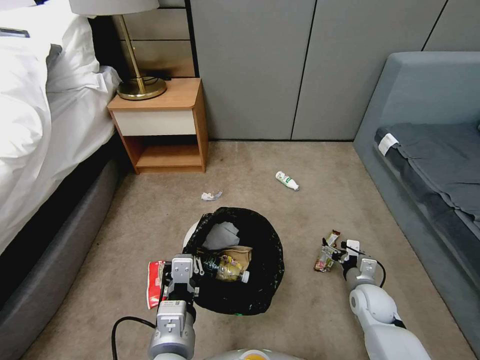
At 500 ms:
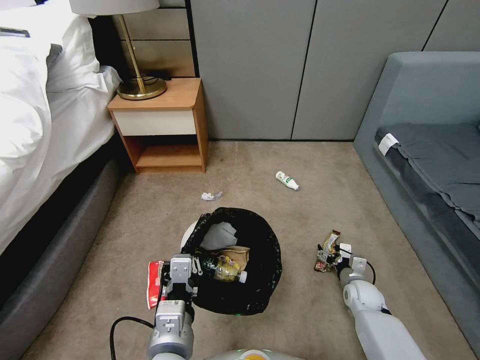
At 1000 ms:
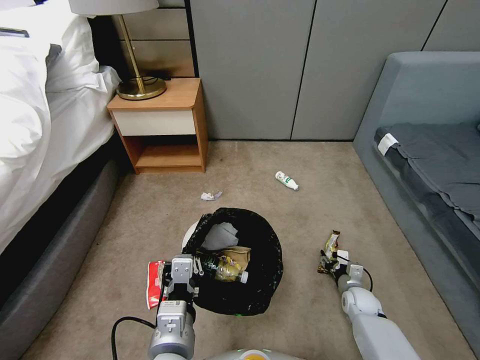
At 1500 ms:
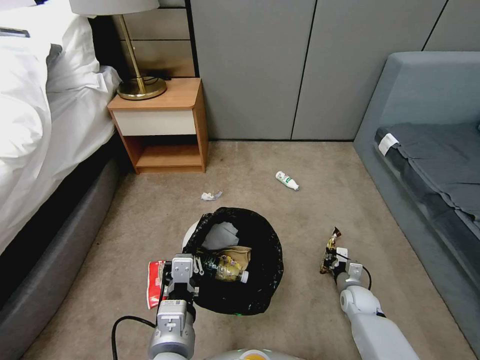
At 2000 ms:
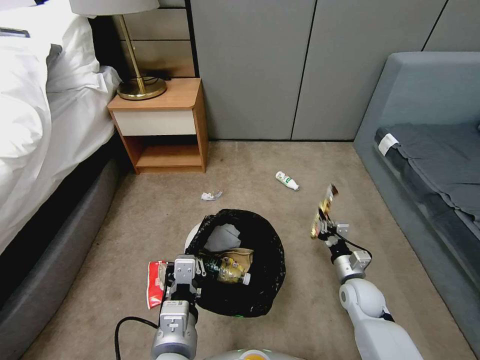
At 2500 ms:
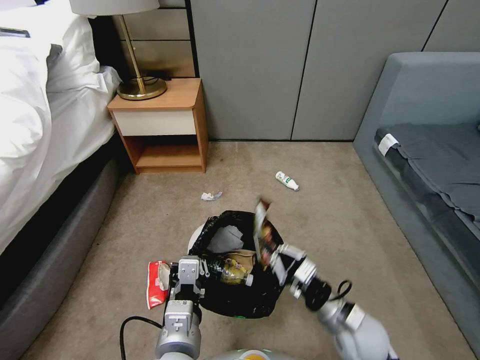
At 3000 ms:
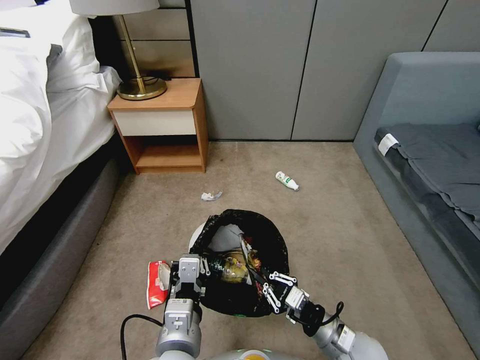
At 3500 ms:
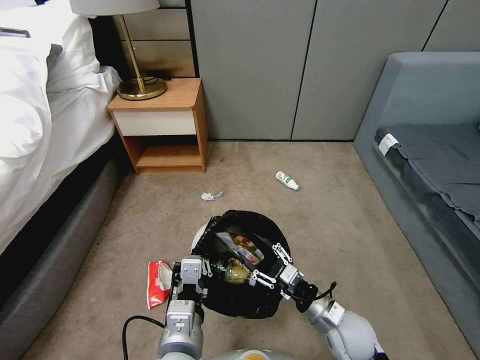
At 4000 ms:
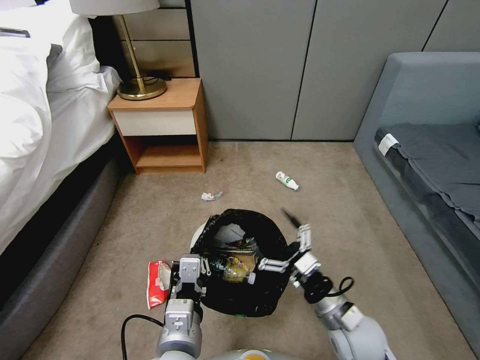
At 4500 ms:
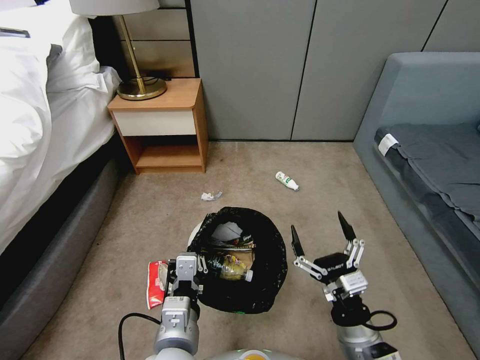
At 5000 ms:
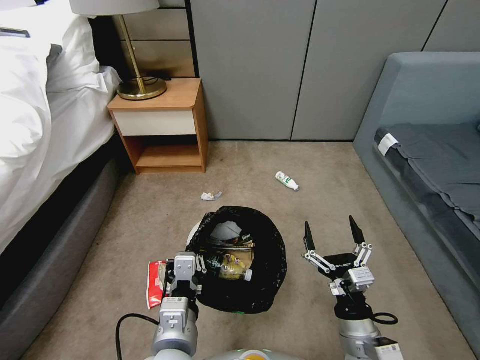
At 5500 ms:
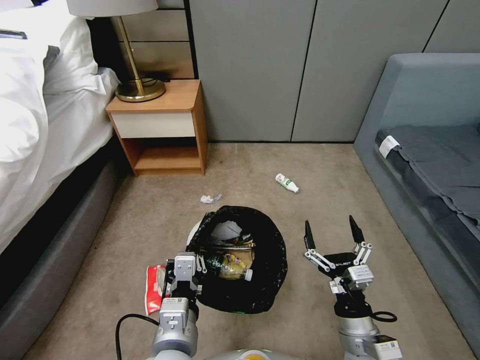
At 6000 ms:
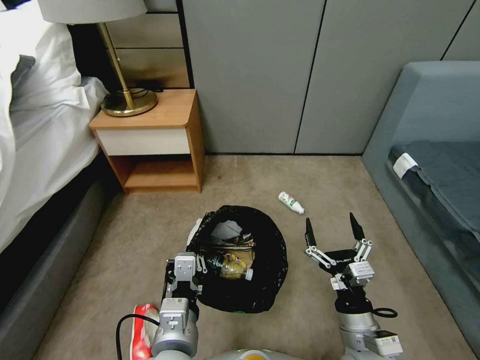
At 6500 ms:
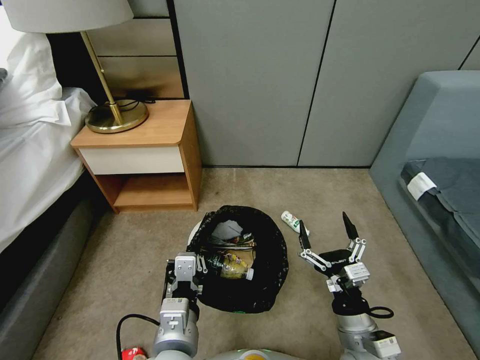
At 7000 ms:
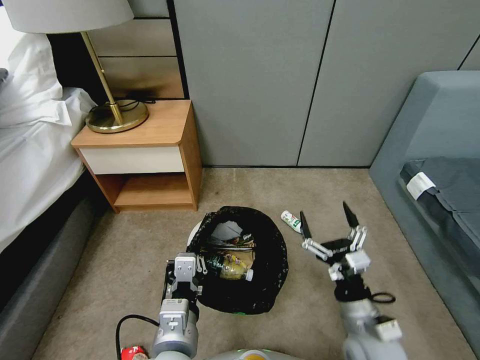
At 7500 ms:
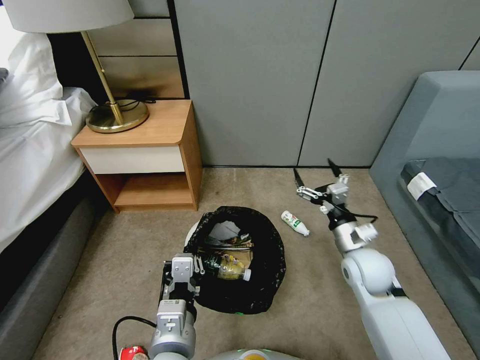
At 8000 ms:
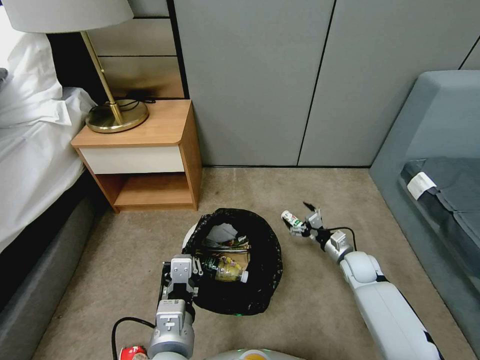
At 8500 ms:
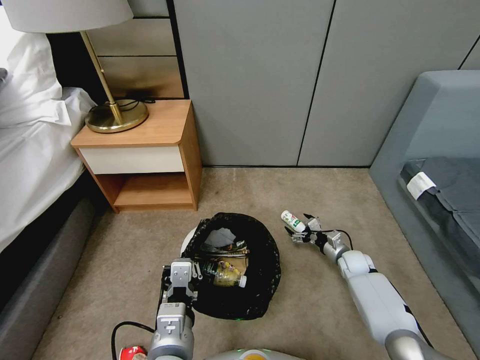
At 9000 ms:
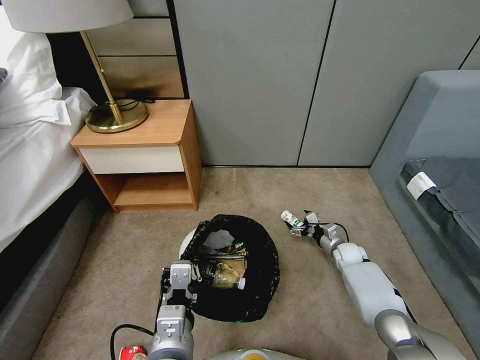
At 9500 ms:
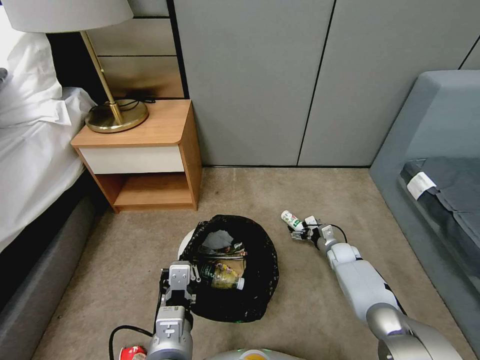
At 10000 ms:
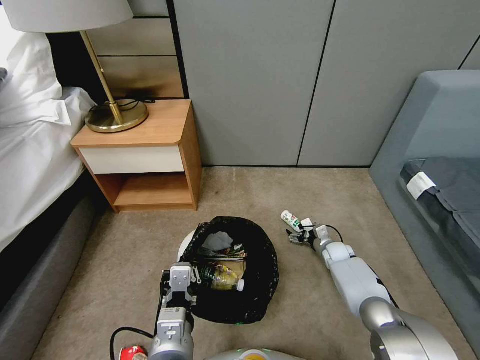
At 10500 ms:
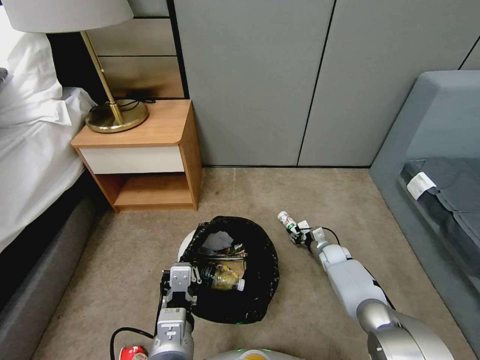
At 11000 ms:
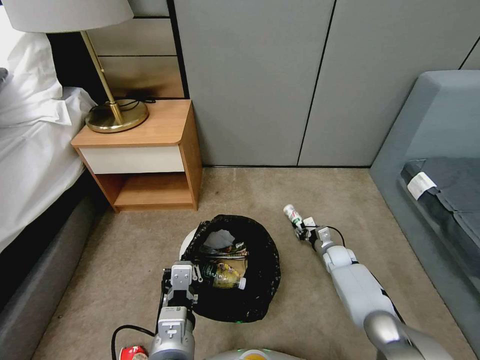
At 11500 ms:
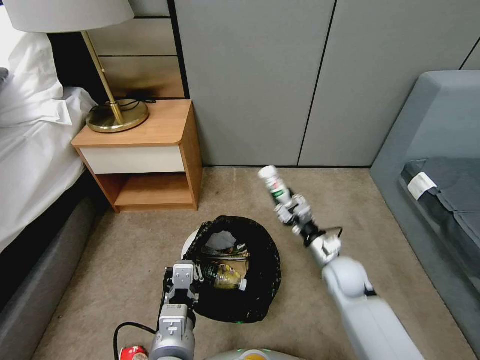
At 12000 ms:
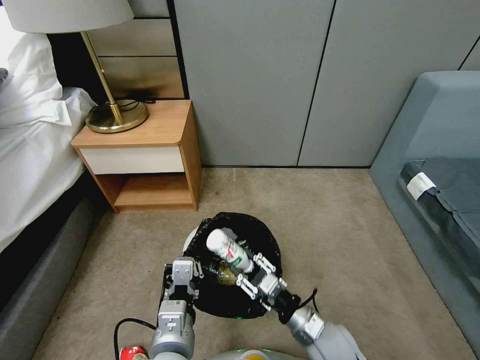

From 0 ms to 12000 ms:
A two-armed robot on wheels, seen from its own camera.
Task of the whole recording: Pick up the trash bin, then pick up the garbage from the floor and place it into the trash bin.
From 0 ms to 2000 ms: The right gripper goes downward and returns, roughly 10 cm each way, and closes its fingers.
From 2000 ms to 4000 ms: The right gripper heads backward, upward and to the left, covering roughly 15 cm, and opens up.
From 4000 ms to 6000 ms: The right gripper shifts roughly 5 cm backward.
From 6000 ms to 8000 ms: The right gripper goes about 25 cm forward, to the right and downward.
From 8000 ms to 10000 ms: The right gripper goes roughly 10 cm downward and forward.
From 10000 ms to 12000 ms: The right gripper is displaced backward, to the left and upward by some 30 cm, and closes its fingers.

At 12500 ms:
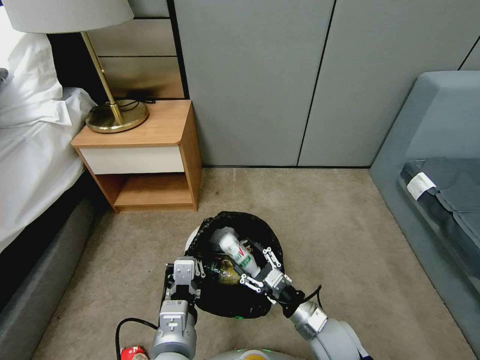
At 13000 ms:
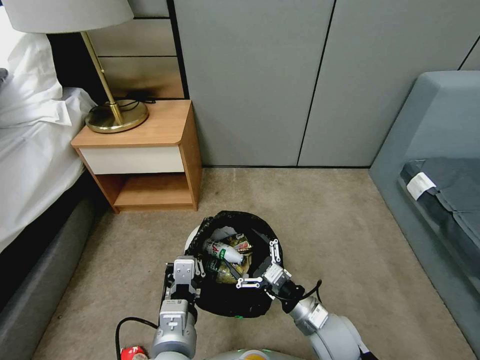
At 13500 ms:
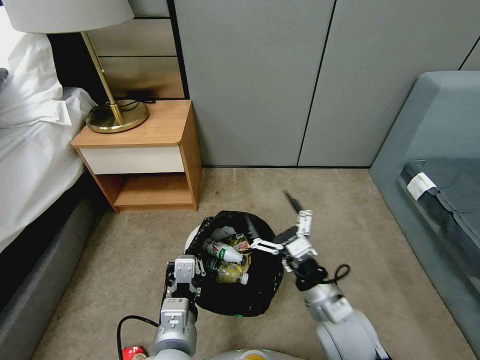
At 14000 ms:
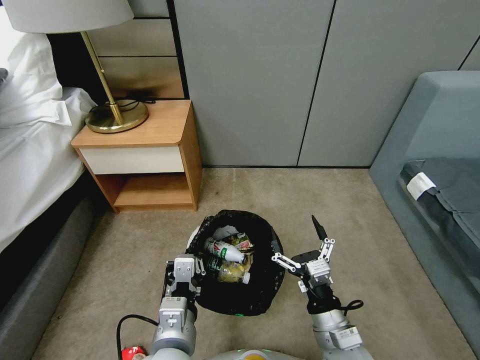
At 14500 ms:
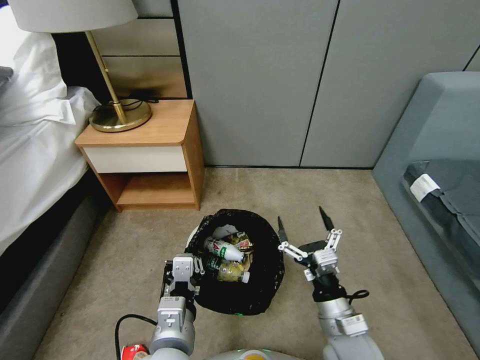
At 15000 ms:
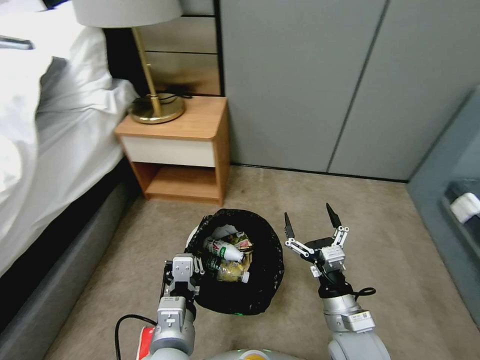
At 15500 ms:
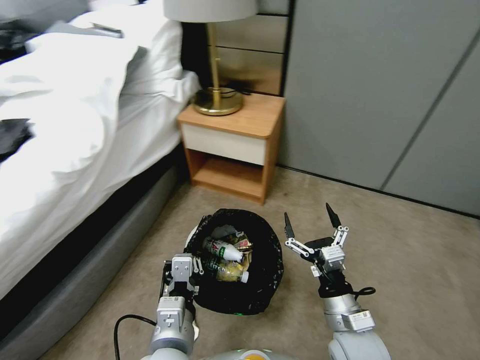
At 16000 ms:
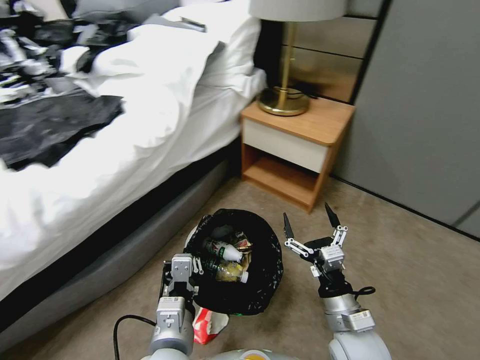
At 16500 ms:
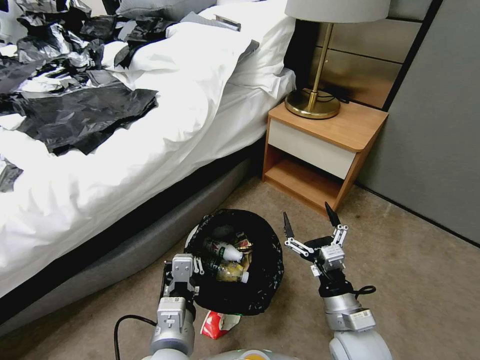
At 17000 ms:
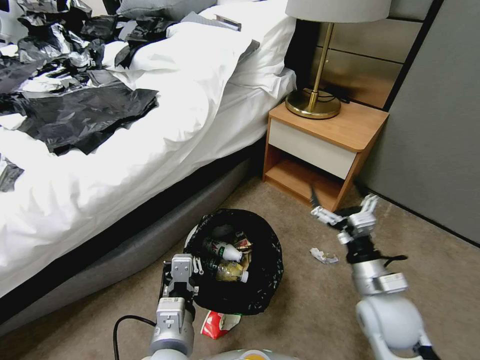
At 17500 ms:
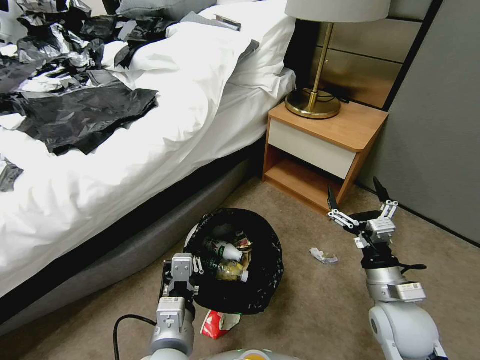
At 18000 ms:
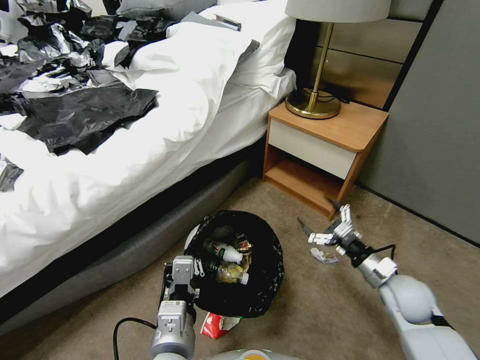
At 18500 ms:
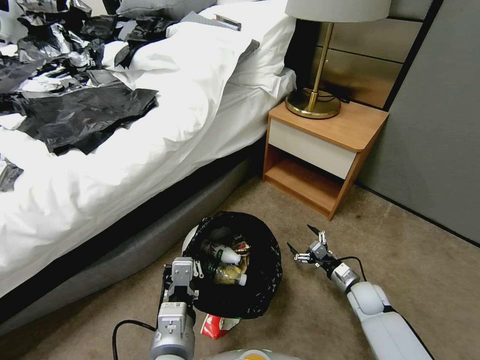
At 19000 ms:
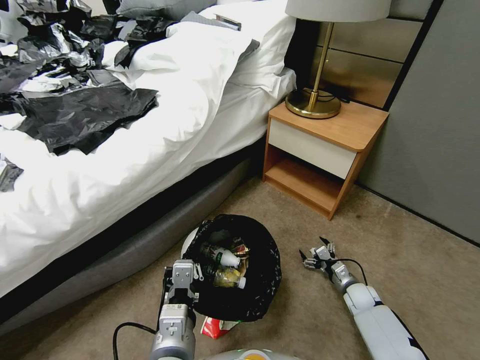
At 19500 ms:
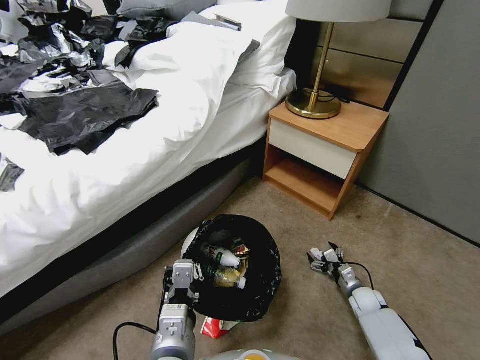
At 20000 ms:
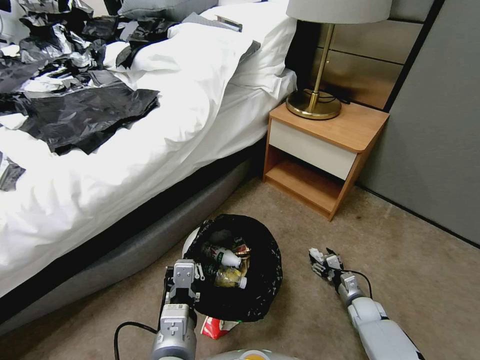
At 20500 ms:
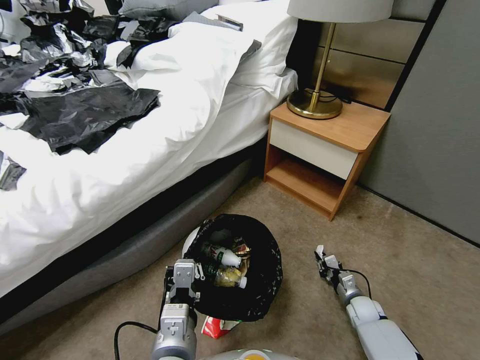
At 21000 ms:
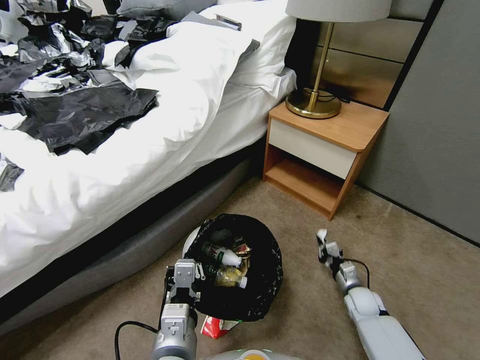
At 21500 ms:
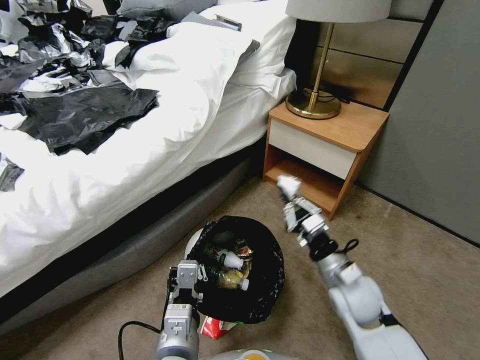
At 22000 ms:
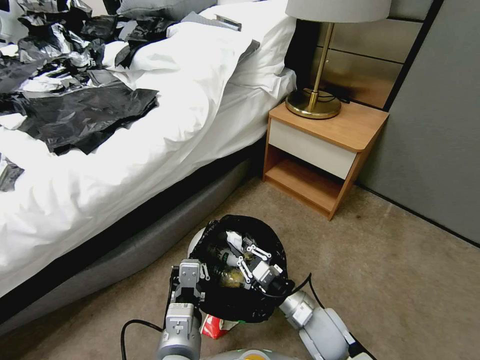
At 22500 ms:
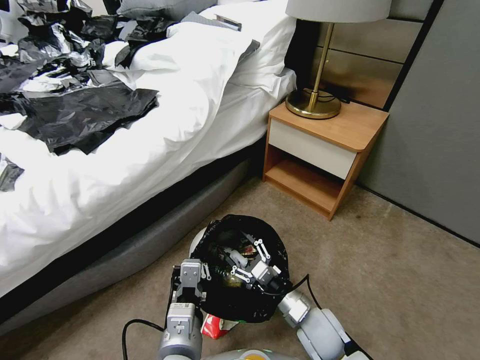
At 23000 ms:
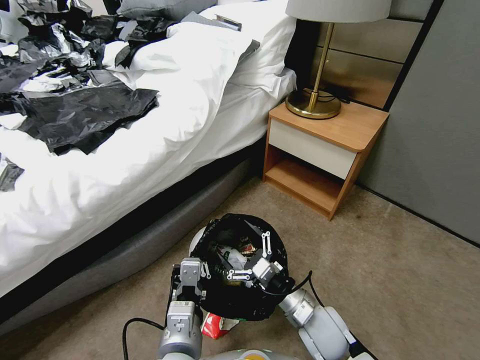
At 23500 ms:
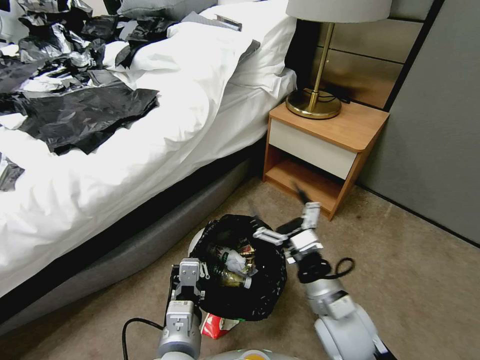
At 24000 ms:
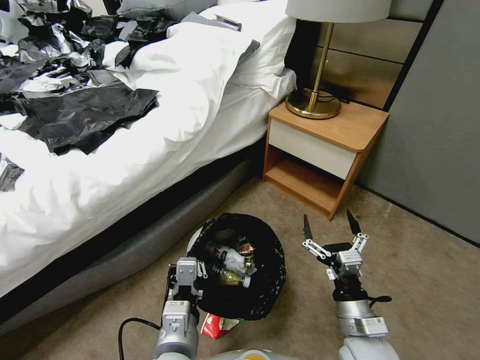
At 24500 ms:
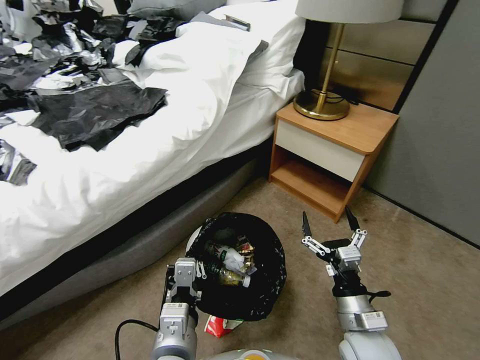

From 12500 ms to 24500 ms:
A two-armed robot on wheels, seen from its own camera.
Task of the whole recording: Pick up the trash bin, then pick up the garbage from the floor and place it into the trash bin.
From 12500 ms to 14500 ms: The right gripper is displaced upward by some 5 cm, and opens.
From 16500 ms to 18500 ms: The right gripper moves downward, to the right and forward, approximately 25 cm.
From 18500 ms to 20500 ms: The right gripper travels downward by roughly 10 cm, and closes its fingers.
From 20500 ms to 22500 ms: The right gripper shifts approximately 25 cm to the left and upward, and opens up.
From 22500 ms to 24500 ms: The right gripper heads upward and to the right, covering approximately 10 cm.

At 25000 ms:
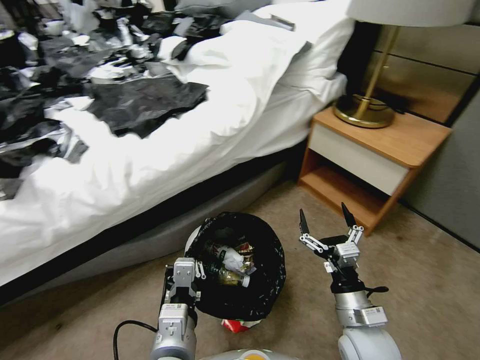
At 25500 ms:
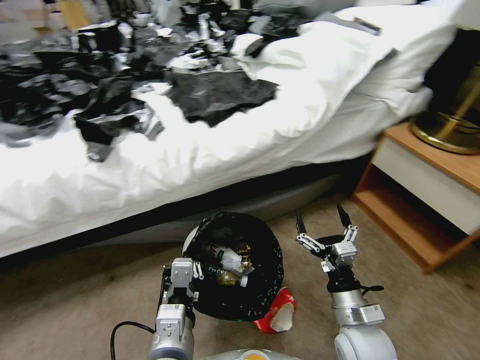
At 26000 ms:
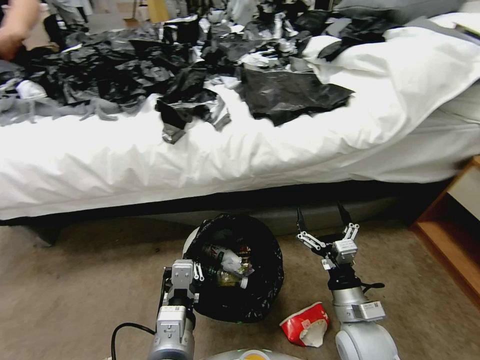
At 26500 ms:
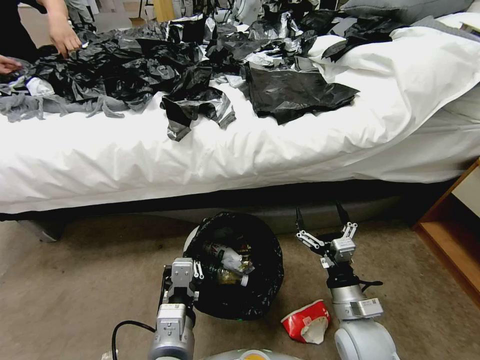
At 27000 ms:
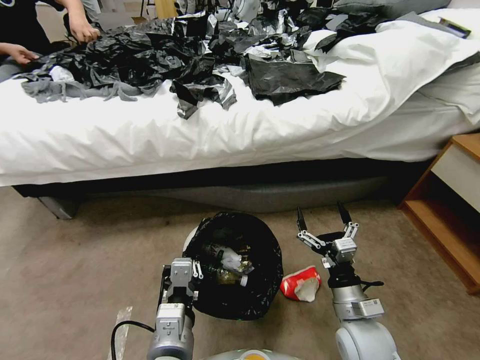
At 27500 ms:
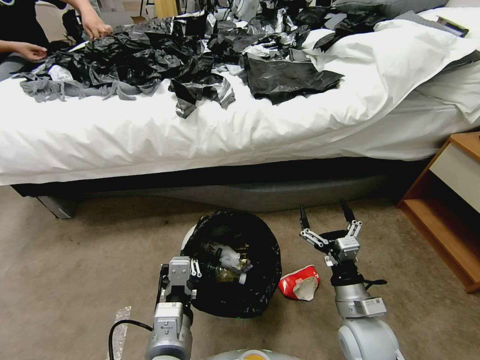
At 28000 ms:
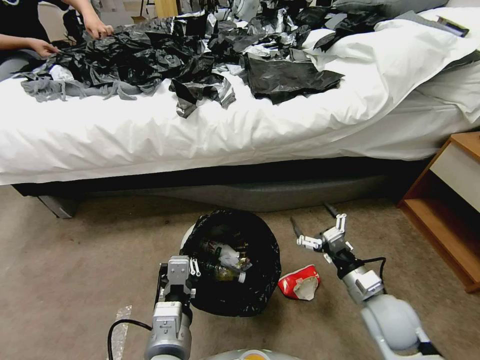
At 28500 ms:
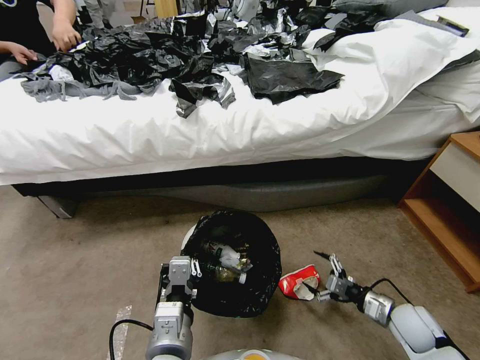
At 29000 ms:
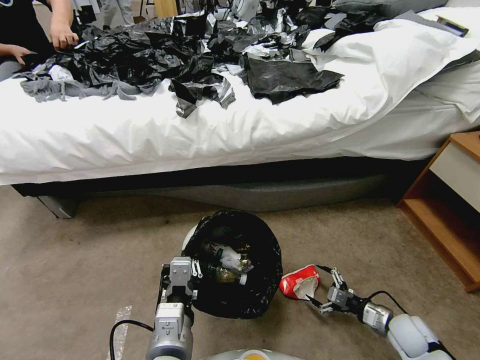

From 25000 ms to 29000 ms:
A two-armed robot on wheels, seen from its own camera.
Task of the whole recording: Pick up the trash bin, then pick up the garbage from the floor and place it into the trash bin.
From 27000 ms to 29000 ms: The right gripper heads to the right and downward, covering some 25 cm.
